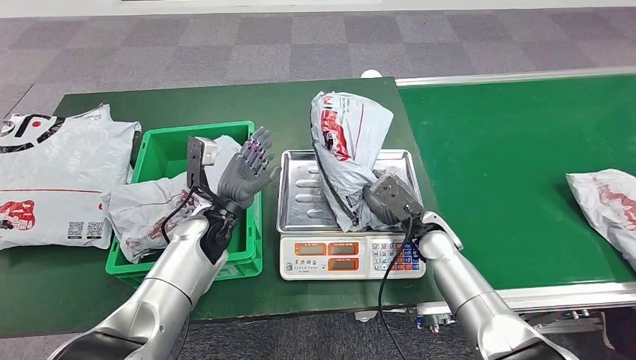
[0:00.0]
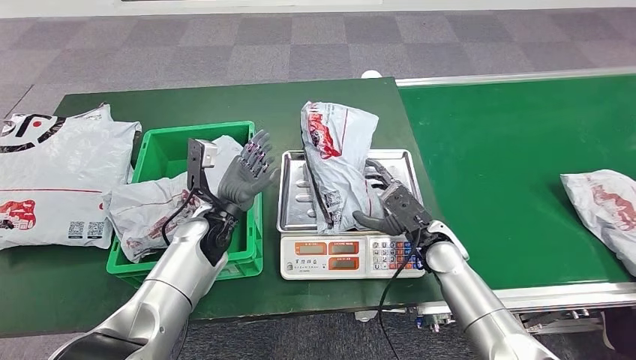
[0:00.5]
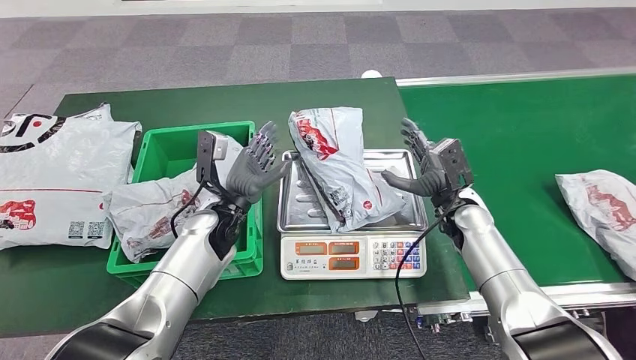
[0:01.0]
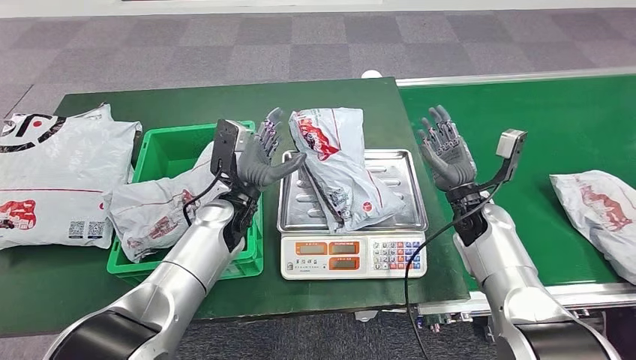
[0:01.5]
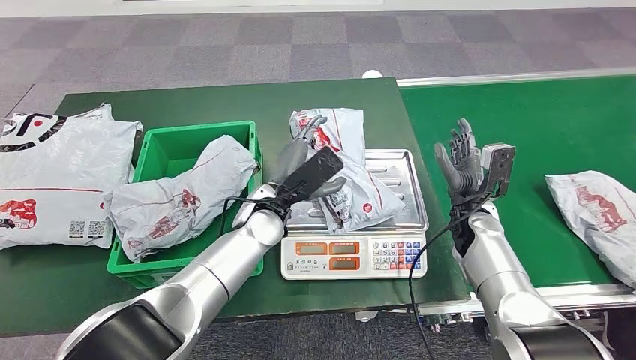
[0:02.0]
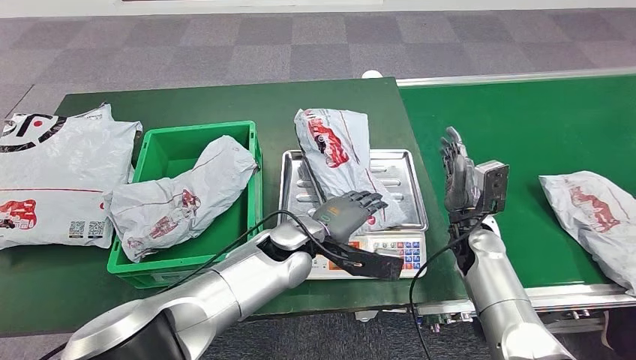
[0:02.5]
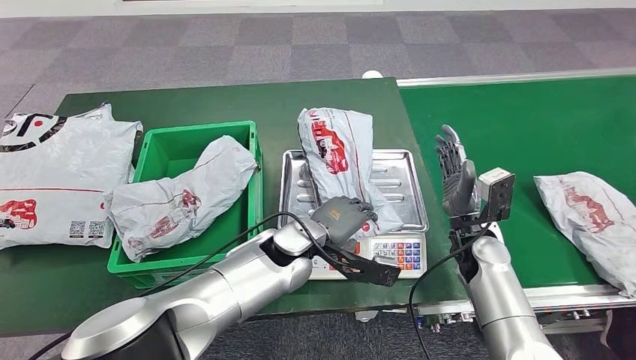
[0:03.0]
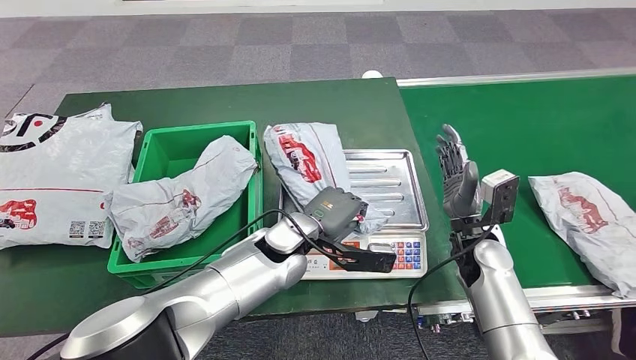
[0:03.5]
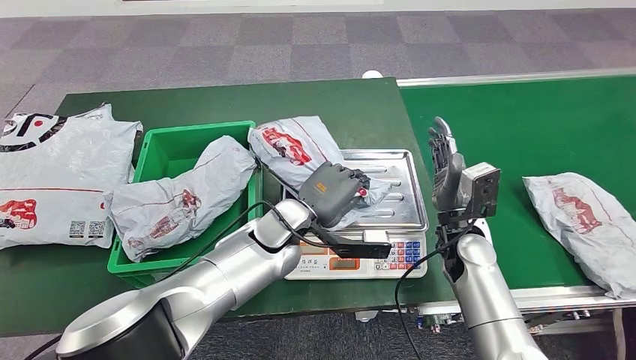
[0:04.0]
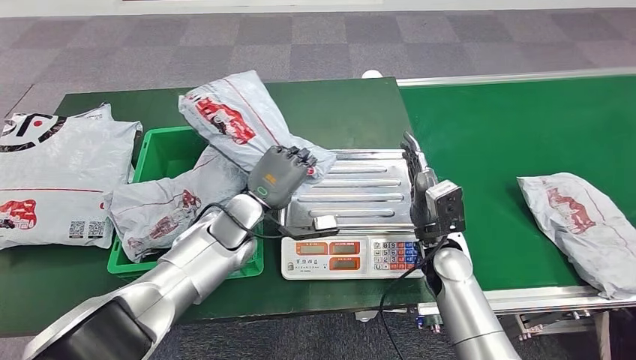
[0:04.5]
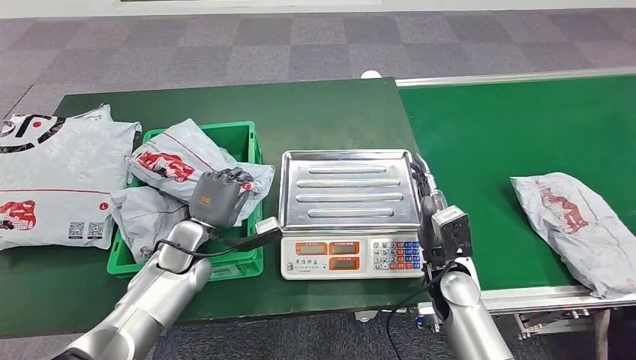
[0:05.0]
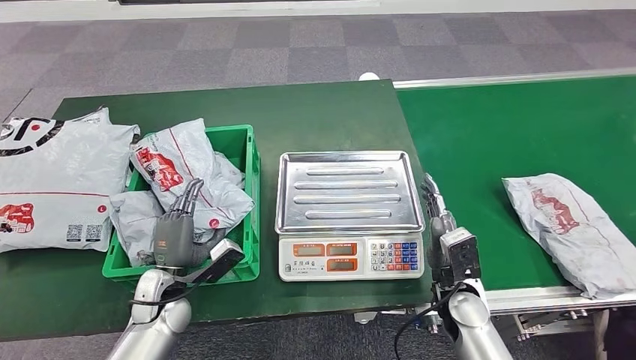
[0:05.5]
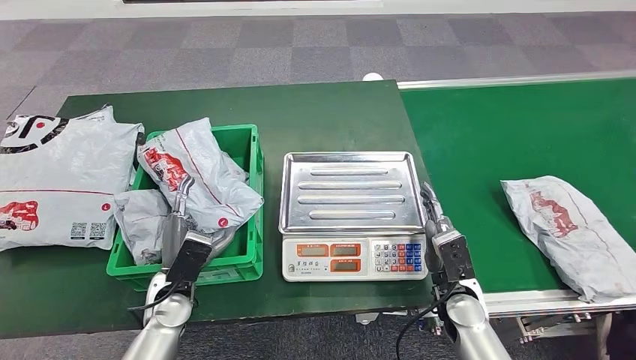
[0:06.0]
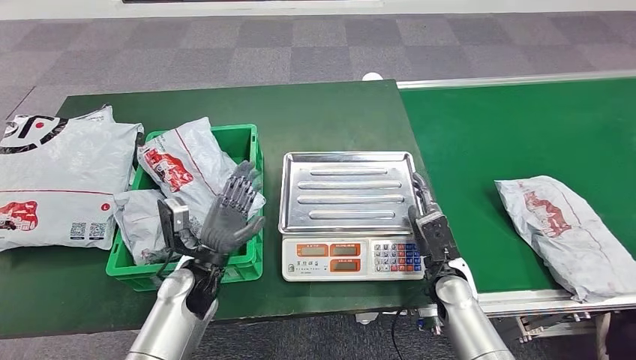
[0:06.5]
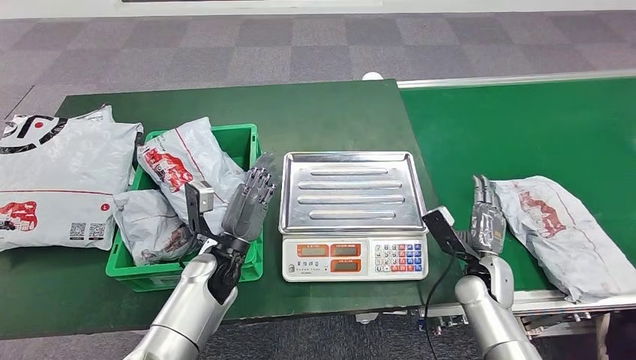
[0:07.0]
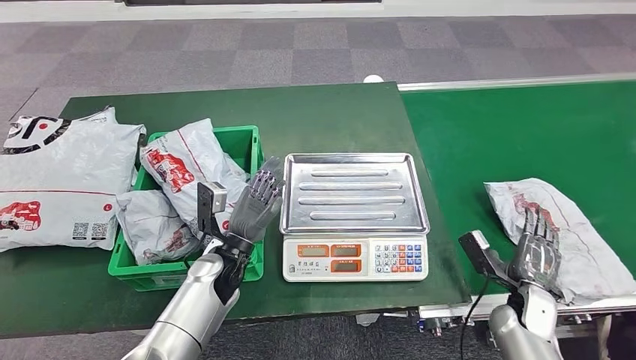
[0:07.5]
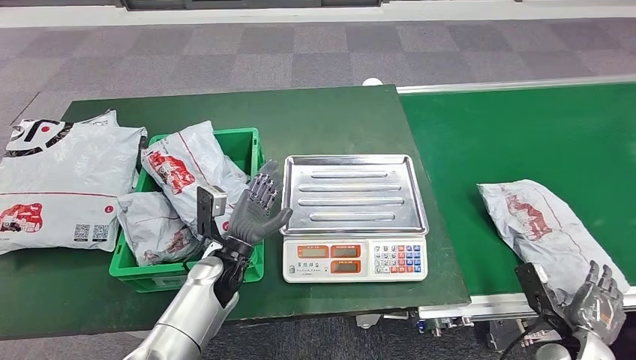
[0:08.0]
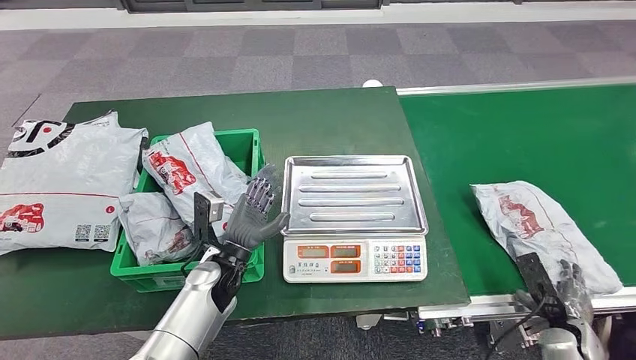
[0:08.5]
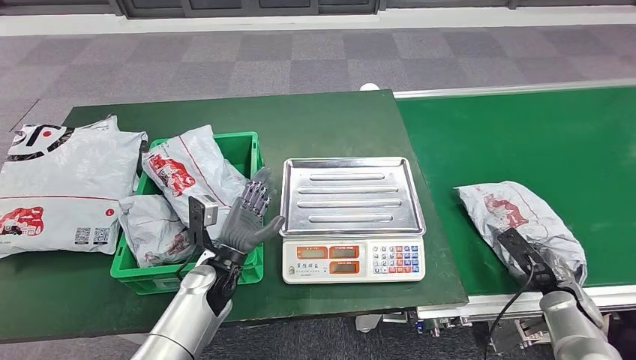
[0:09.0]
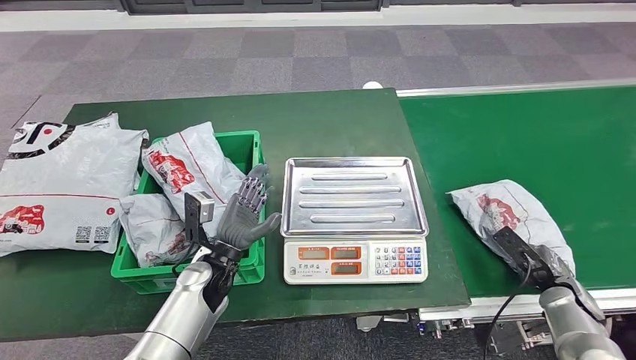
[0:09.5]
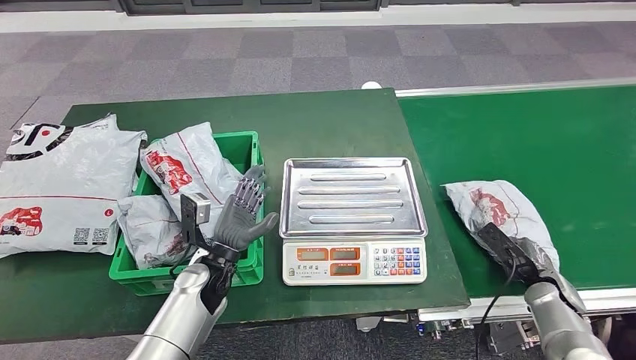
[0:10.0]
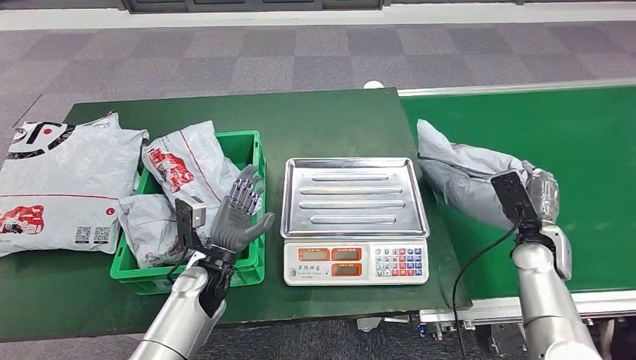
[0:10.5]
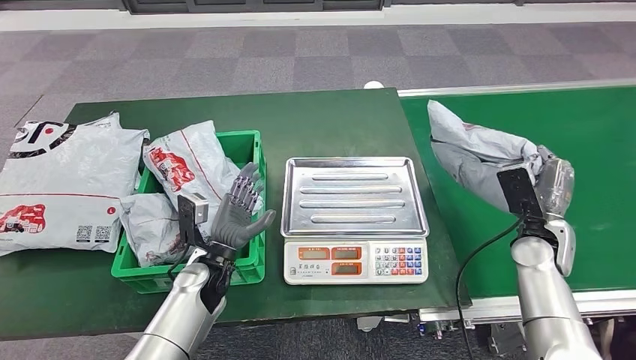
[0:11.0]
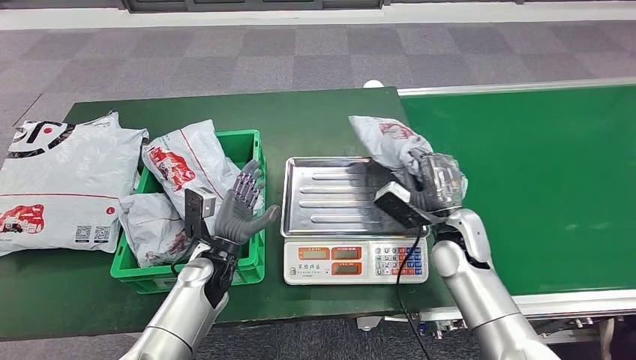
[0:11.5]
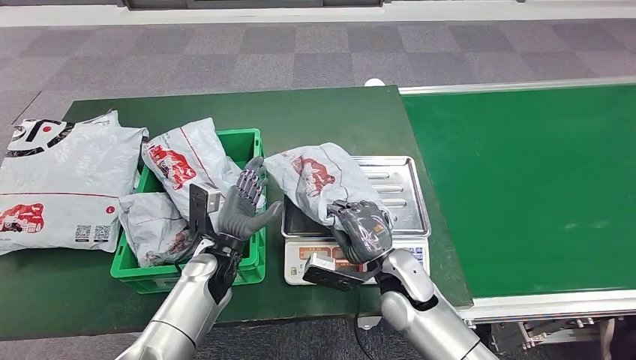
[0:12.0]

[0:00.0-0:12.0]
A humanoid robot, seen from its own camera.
Step, 0:00.0 to 0:01.5: Place the parcel onto the inbound machine.
Step, 0:03.5 to 0:04.0: Pick up the parcel from the inbound machine.
Step, 0:04.5 to 0:06.5: Place the parcel into the delivery box.

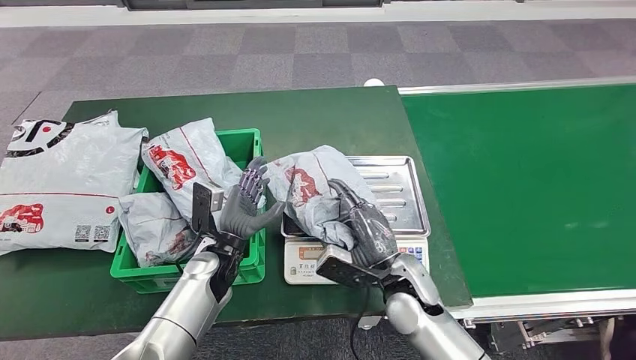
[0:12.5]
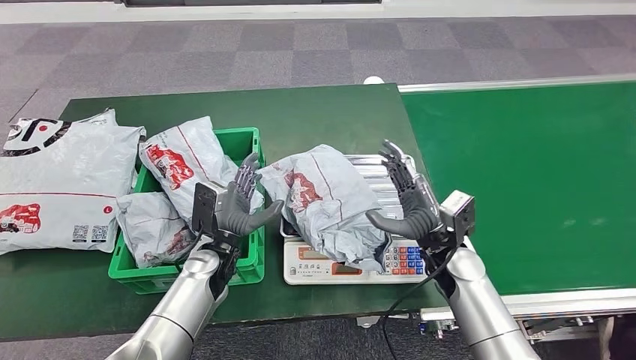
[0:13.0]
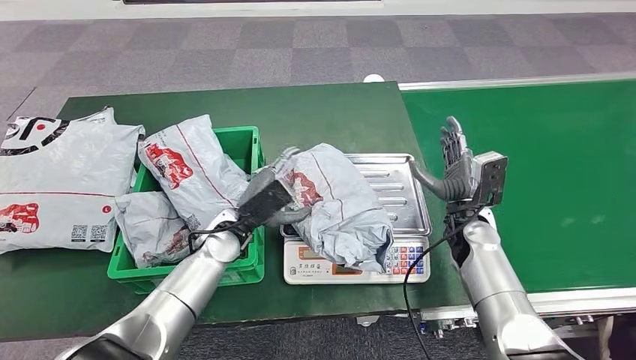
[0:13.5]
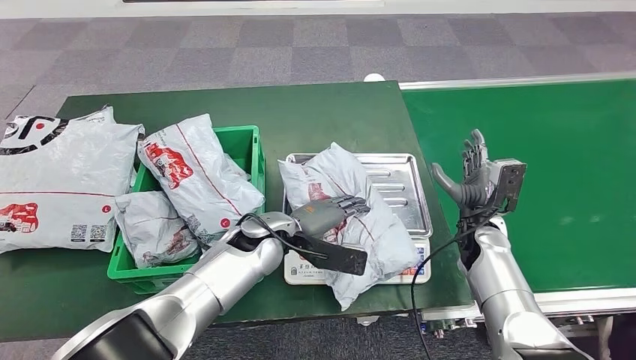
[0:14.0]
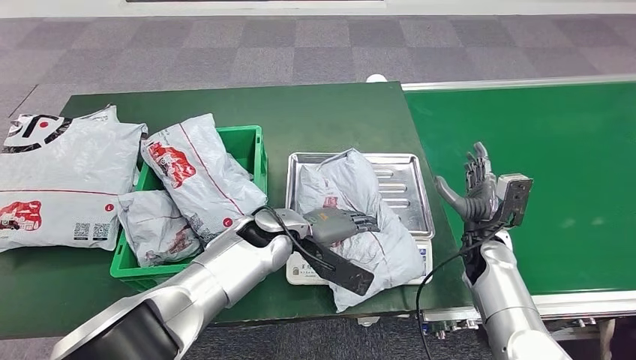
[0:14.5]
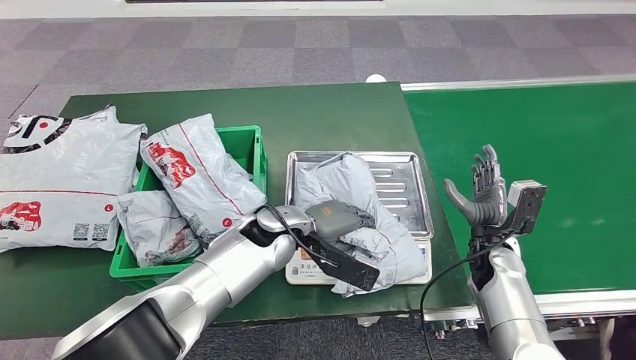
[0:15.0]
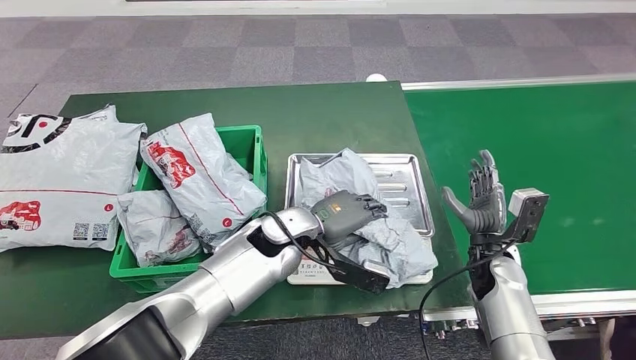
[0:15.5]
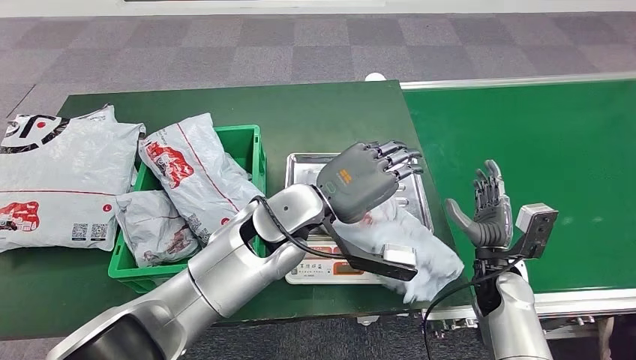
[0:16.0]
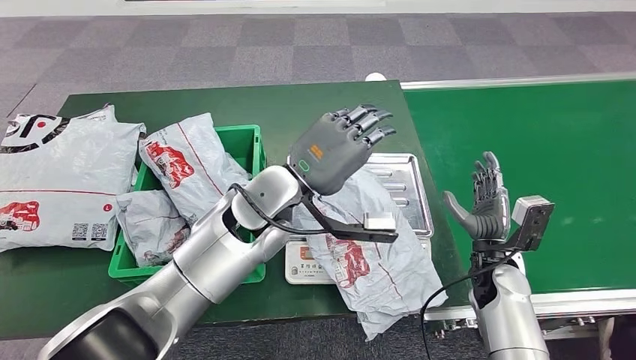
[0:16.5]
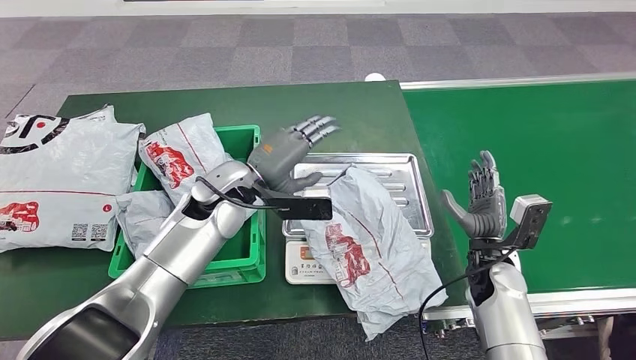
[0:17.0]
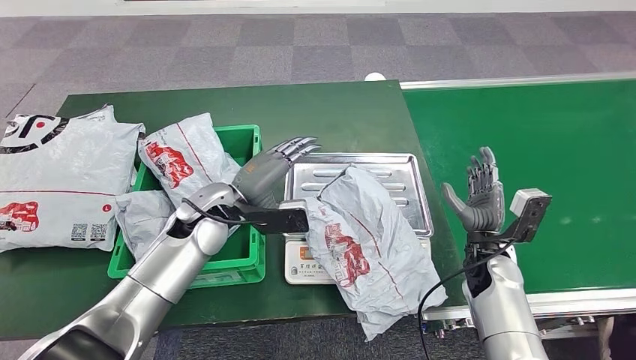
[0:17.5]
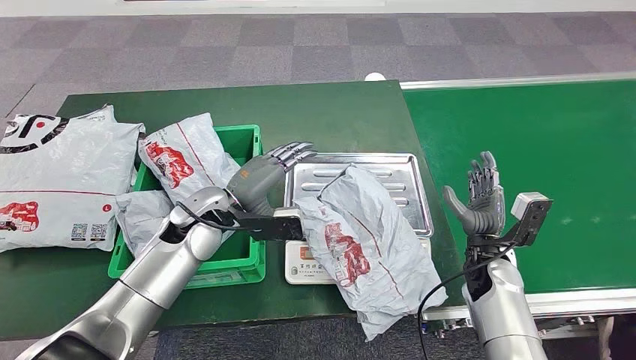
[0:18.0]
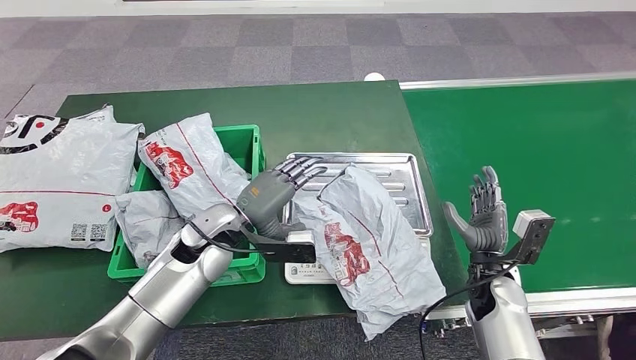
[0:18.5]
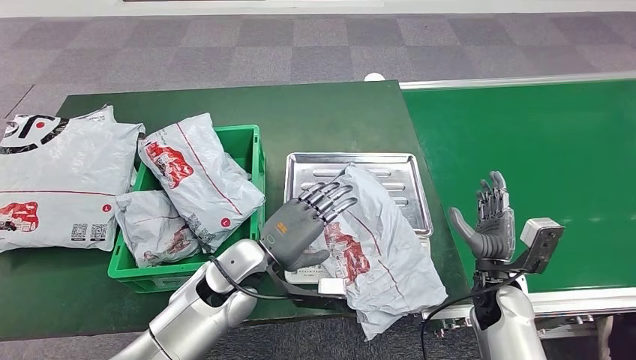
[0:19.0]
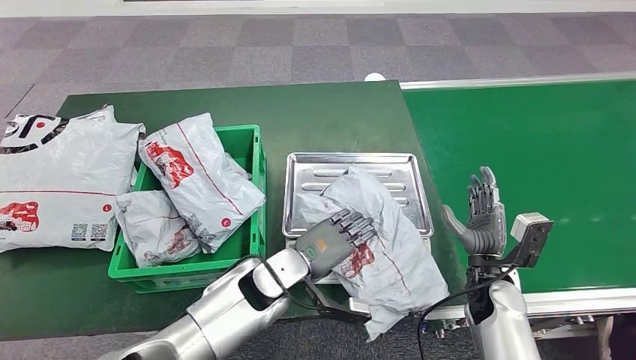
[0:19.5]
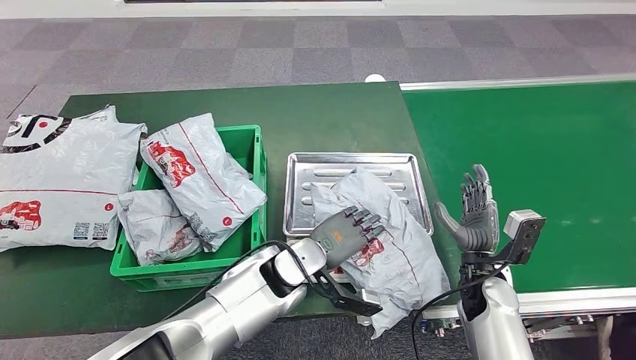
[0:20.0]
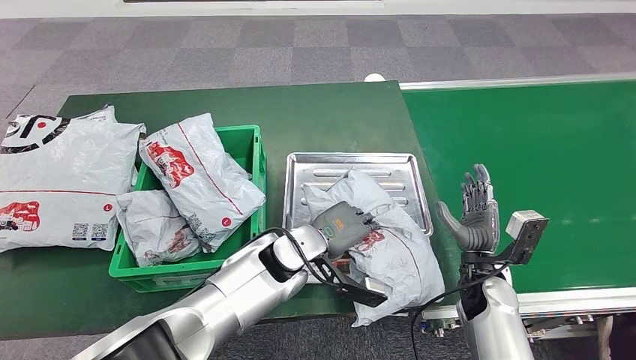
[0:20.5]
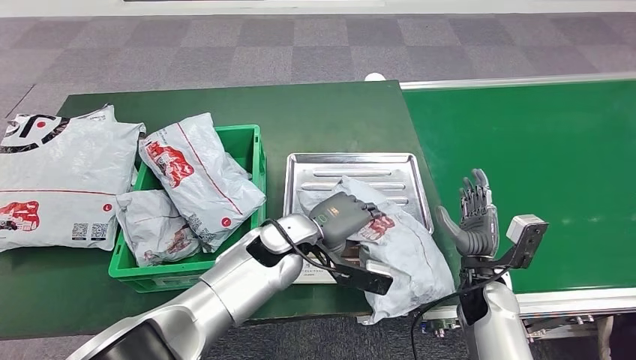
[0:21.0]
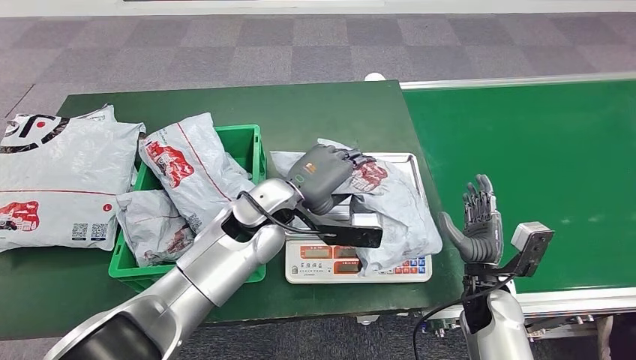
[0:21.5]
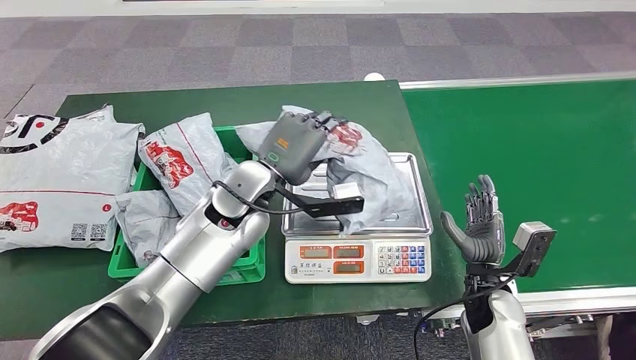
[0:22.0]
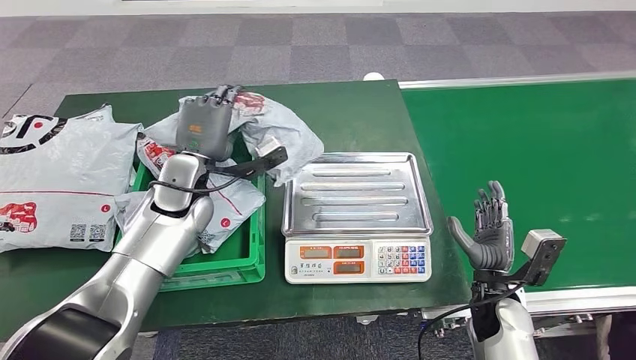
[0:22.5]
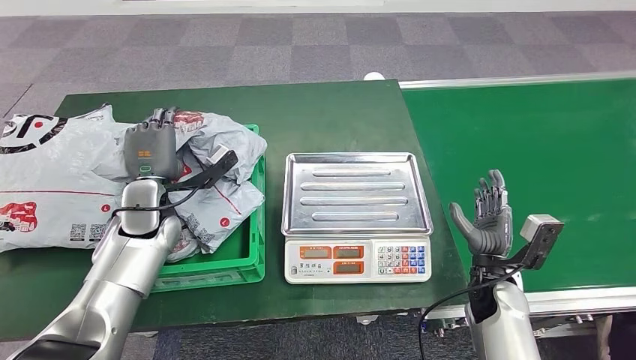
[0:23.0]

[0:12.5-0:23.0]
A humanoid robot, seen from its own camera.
Step, 0:20.0 to 0:21.5: Pick up the parcel from the inbound machine.
0:16.5 to 0:19.0: The left hand shifts approximately 15 cm downward, to the left and backward.
0:19.0 to 0:21.0: The left hand goes some 5 cm to the right.
